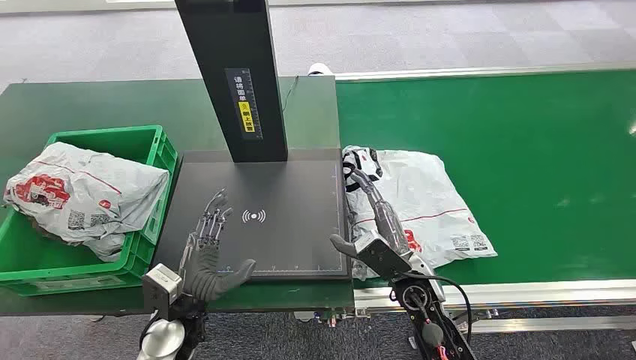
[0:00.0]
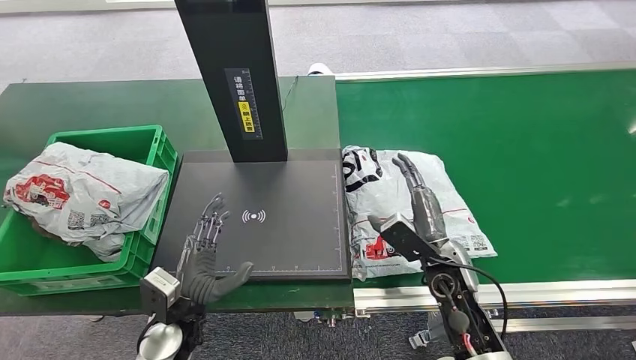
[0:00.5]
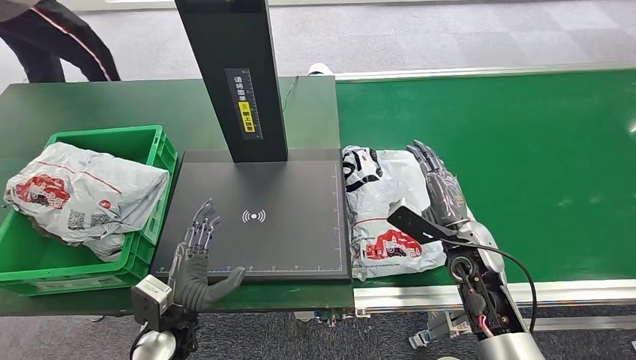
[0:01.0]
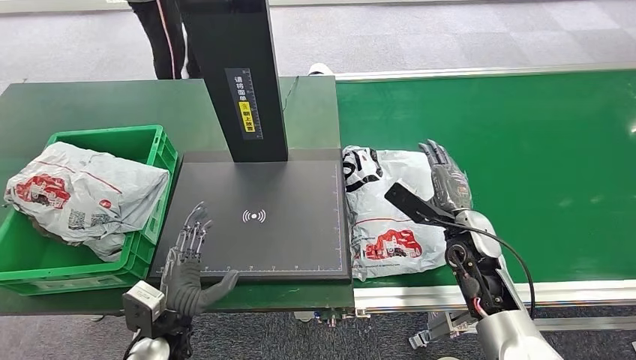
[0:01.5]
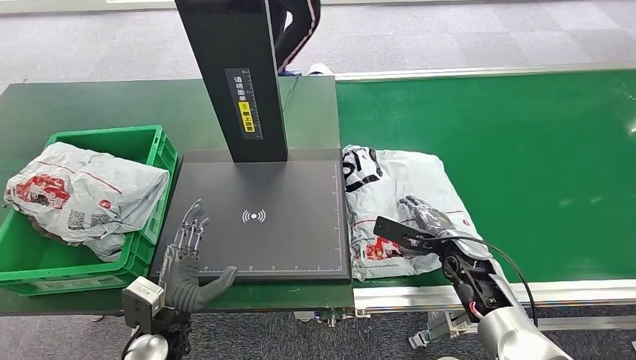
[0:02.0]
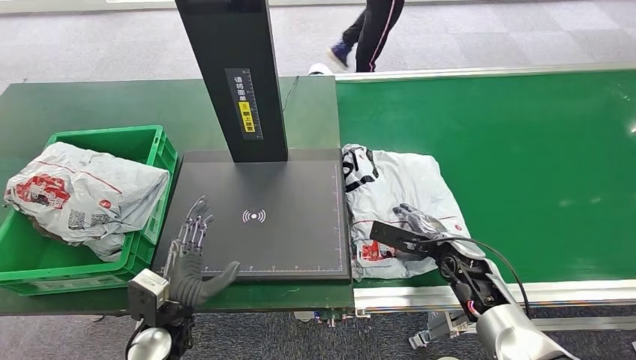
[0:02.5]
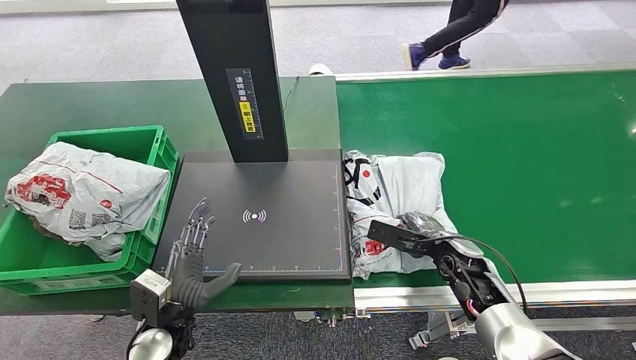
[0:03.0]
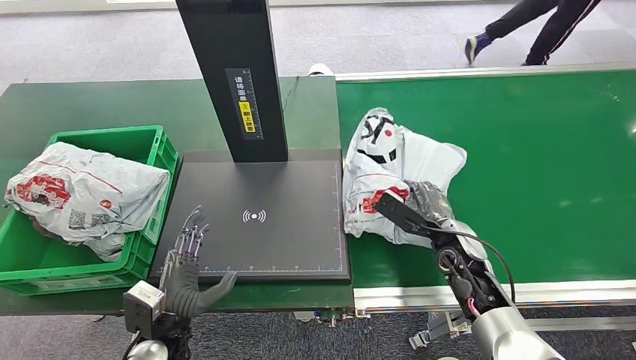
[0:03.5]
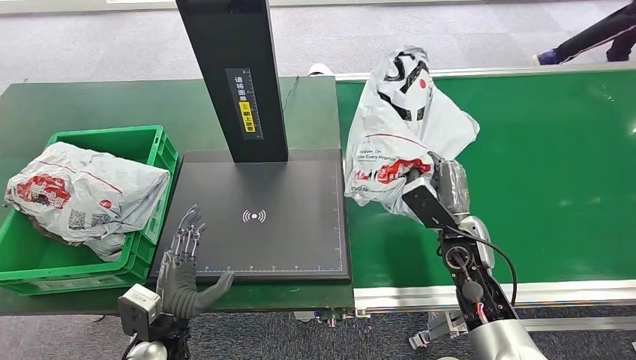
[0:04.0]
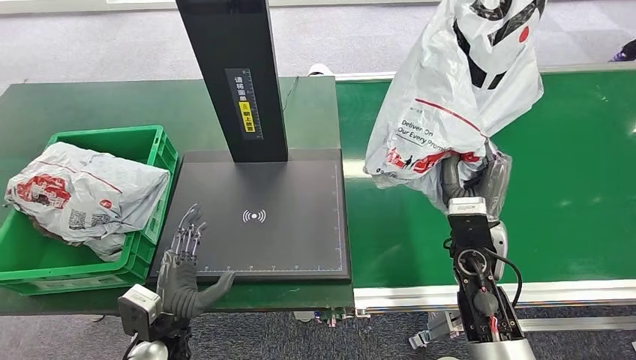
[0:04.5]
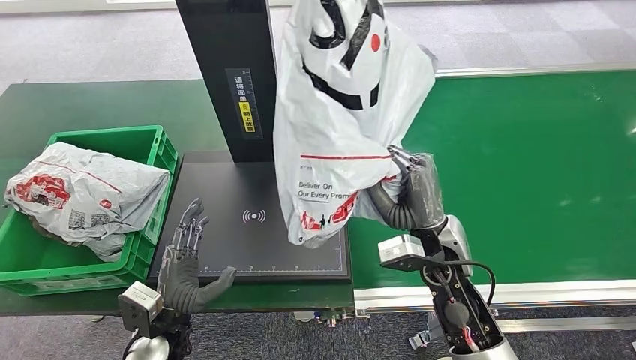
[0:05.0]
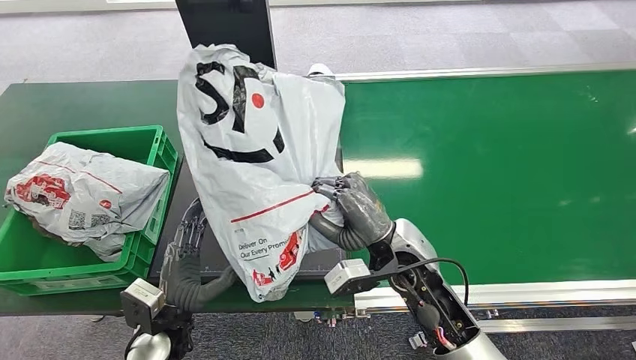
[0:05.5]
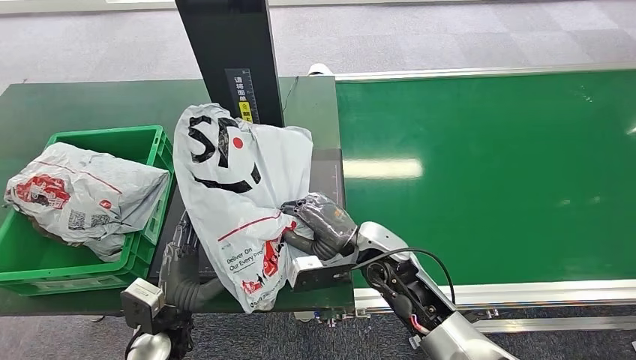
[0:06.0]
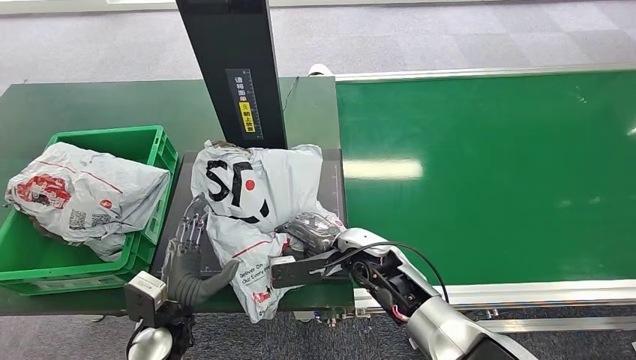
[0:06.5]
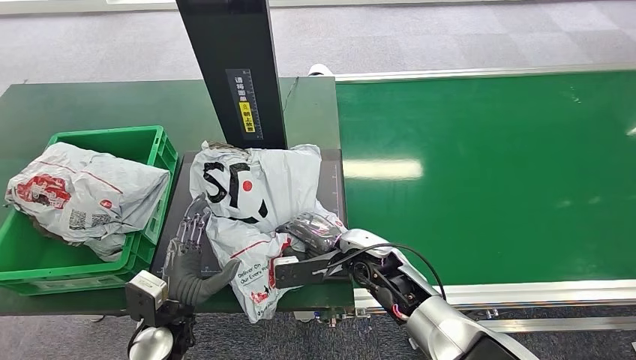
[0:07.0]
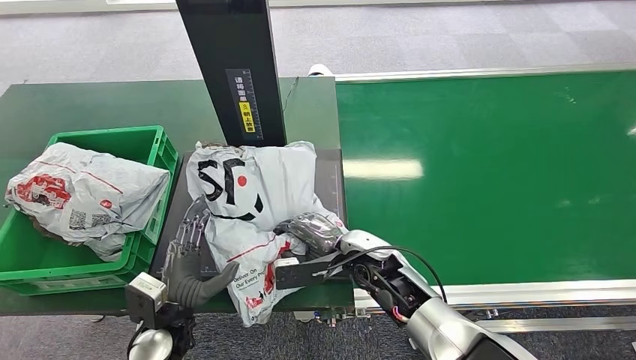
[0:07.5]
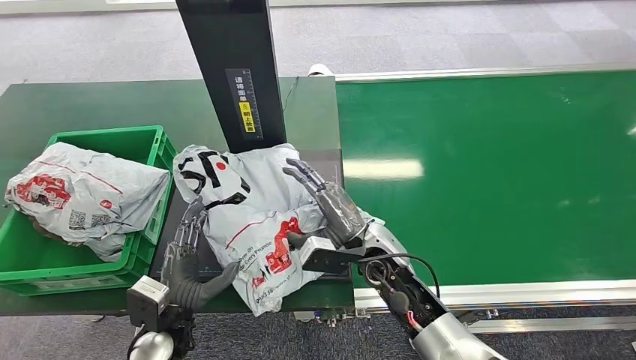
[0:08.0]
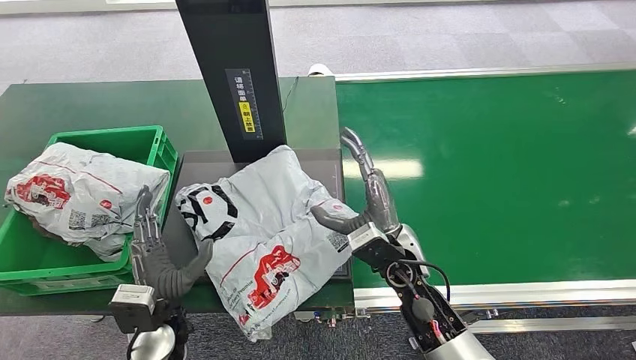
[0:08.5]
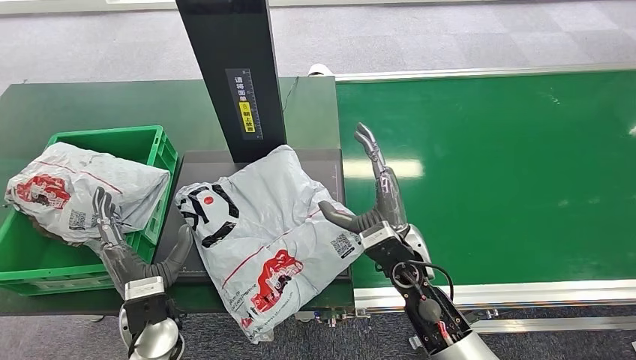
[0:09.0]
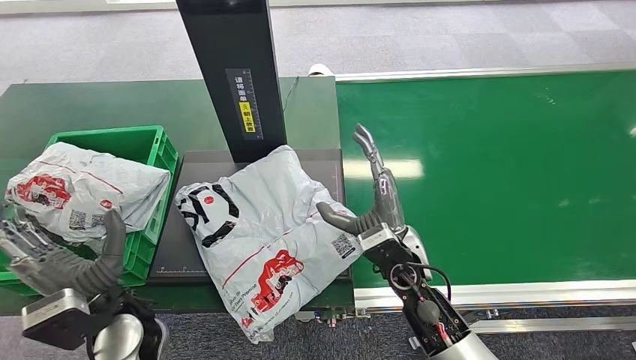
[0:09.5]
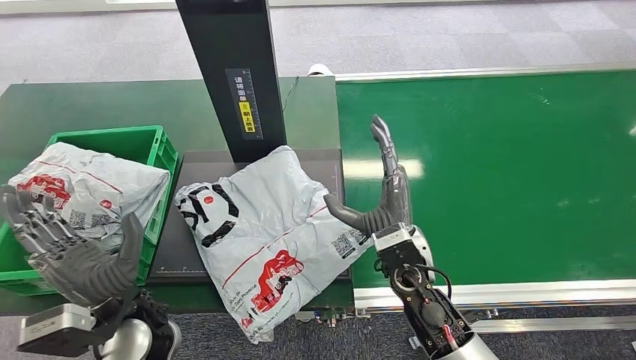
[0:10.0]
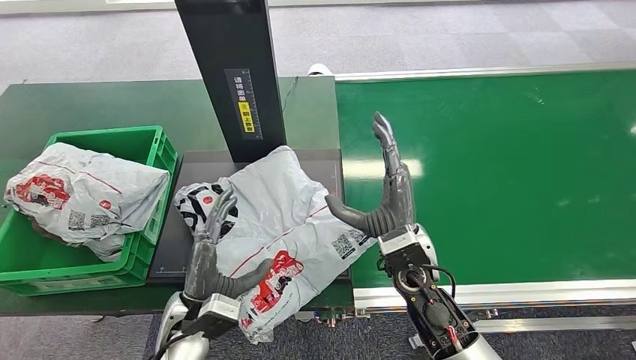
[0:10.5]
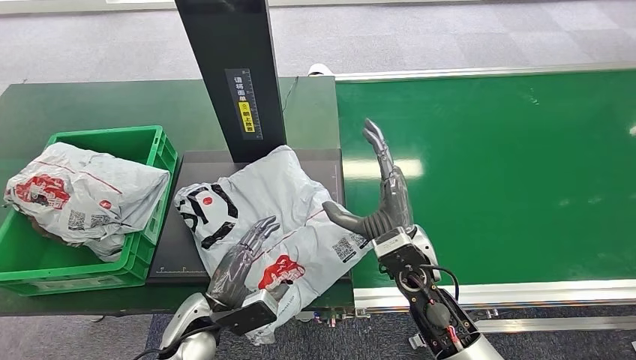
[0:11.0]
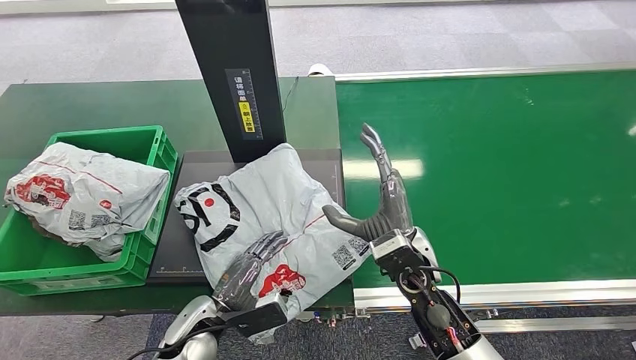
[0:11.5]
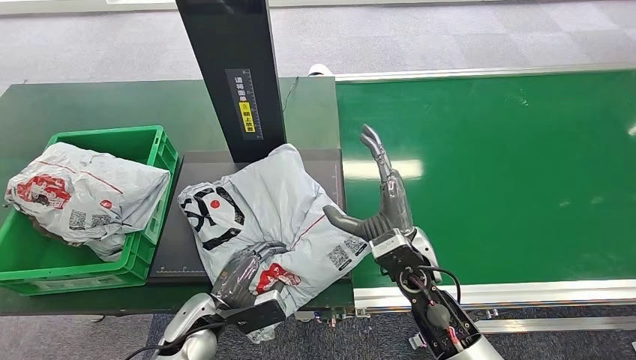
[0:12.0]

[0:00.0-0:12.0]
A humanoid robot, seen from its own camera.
Step, 0:00.0 to 0:04.0: Pick up the package from the conveyor belt.
Step, 0:04.5 to 0:08.5: Place the package onto the inbound machine.
0:02.0 to 0:04.0: The right hand changes place by approximately 5 cm.
0:08.0 to 0:10.0: The left hand heads upward, covering about 10 cm.
0:10.0 to 0:12.0: The left hand travels downward by some 10 cm.

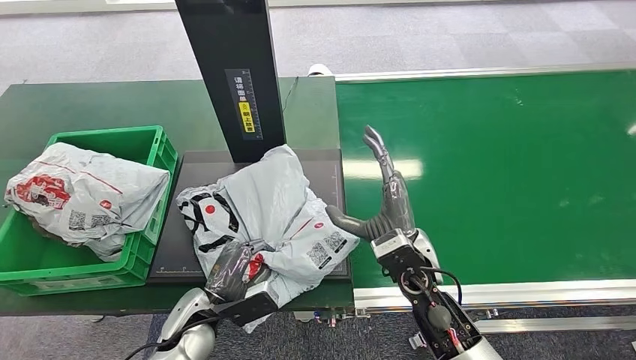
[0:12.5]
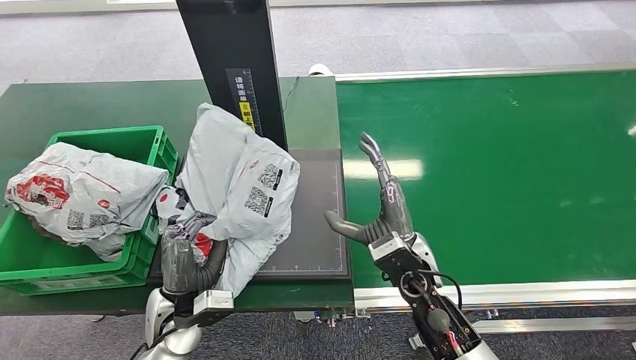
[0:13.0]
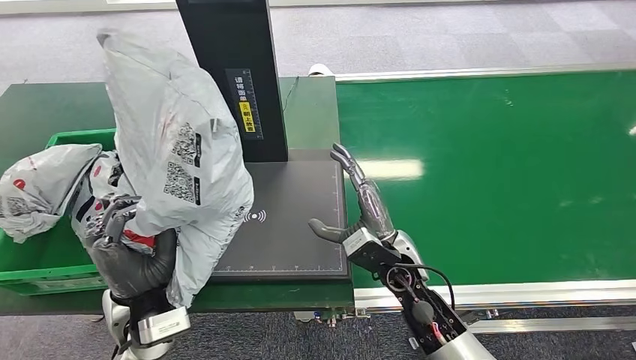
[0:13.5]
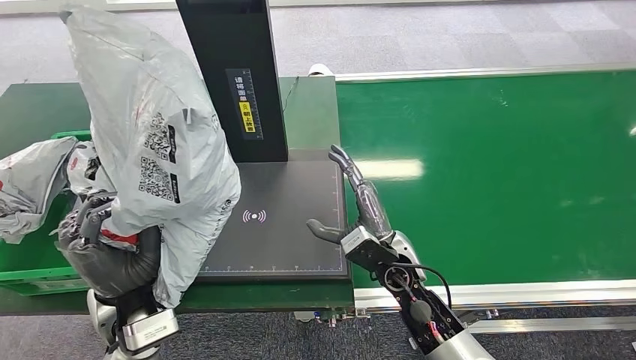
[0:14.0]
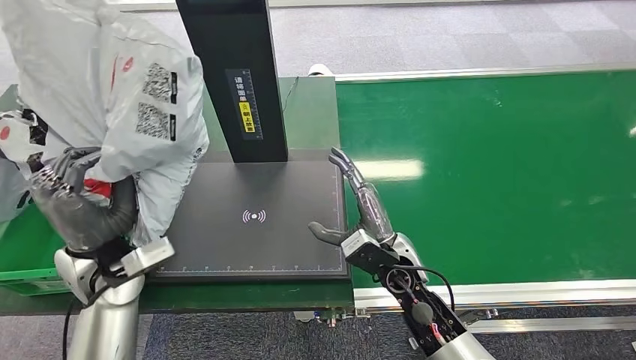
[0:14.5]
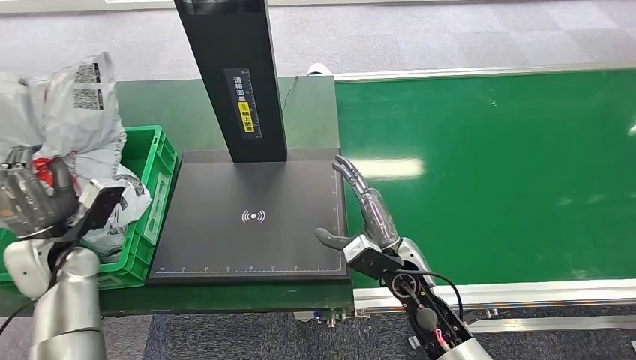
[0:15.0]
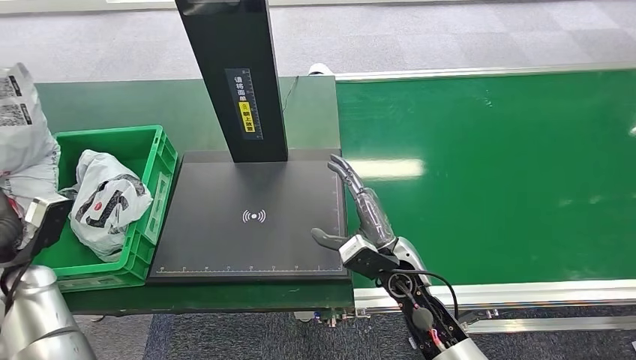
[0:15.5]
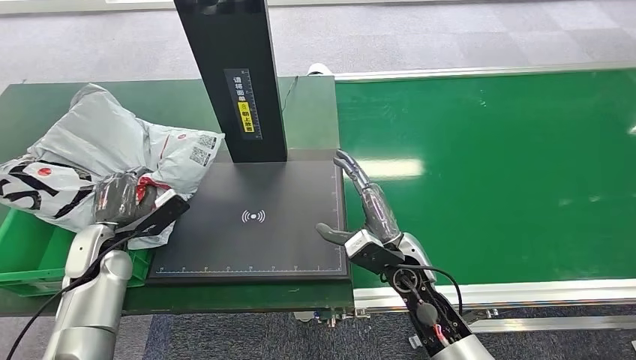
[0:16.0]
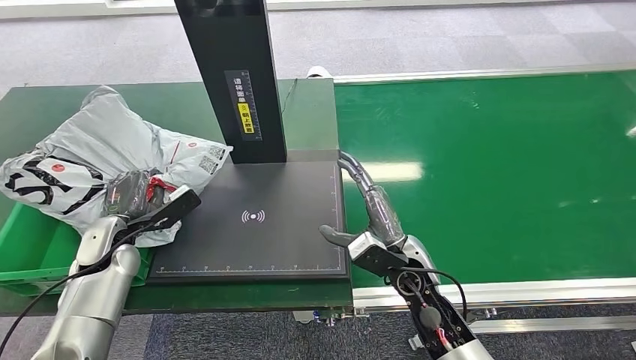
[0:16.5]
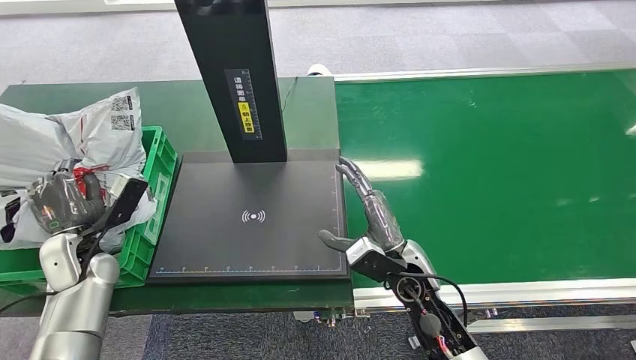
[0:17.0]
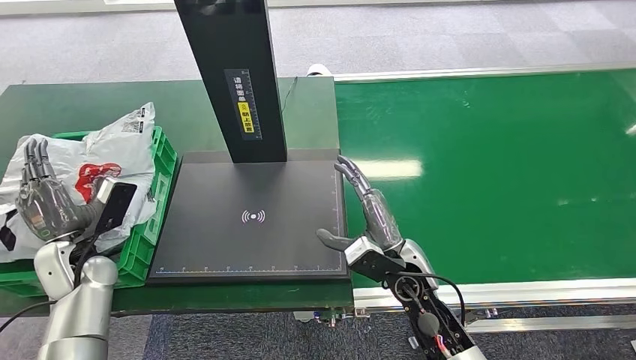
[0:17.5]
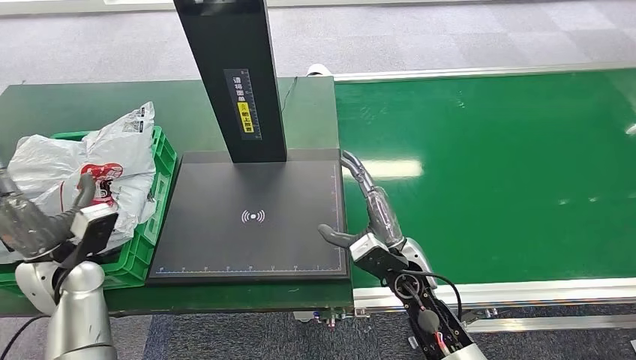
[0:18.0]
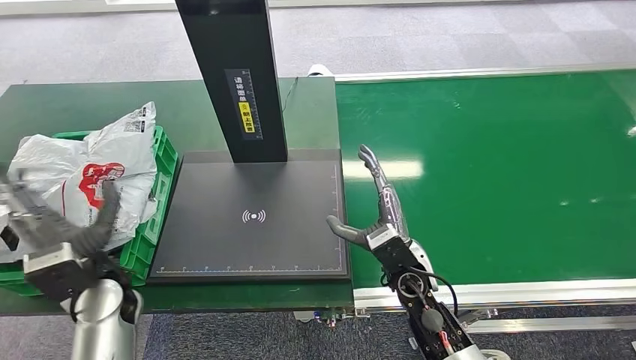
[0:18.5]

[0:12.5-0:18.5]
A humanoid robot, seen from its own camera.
Step, 0:14.5 to 0:18.5: Place the package into the parcel locker.

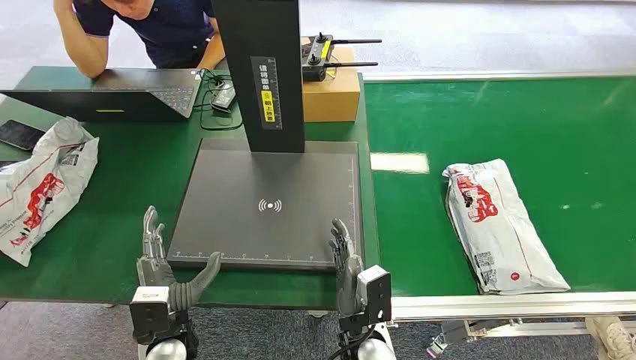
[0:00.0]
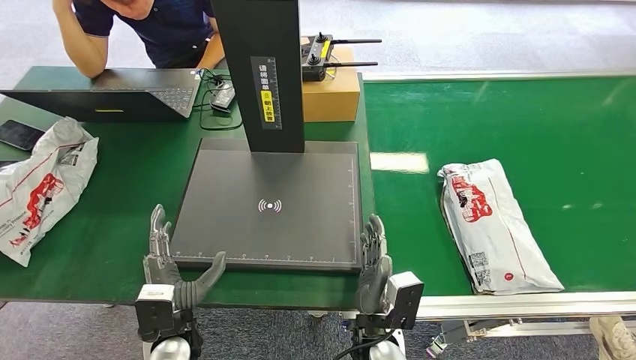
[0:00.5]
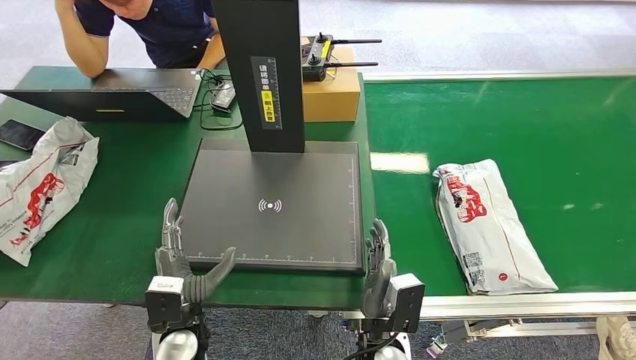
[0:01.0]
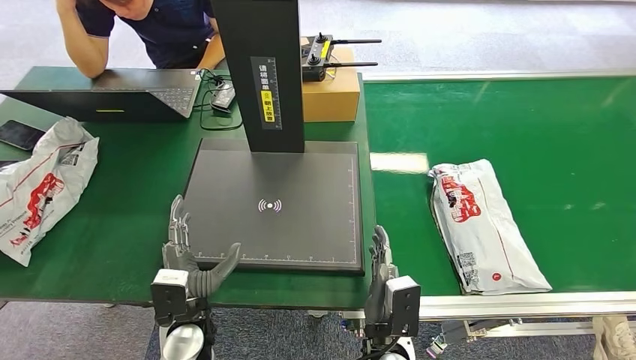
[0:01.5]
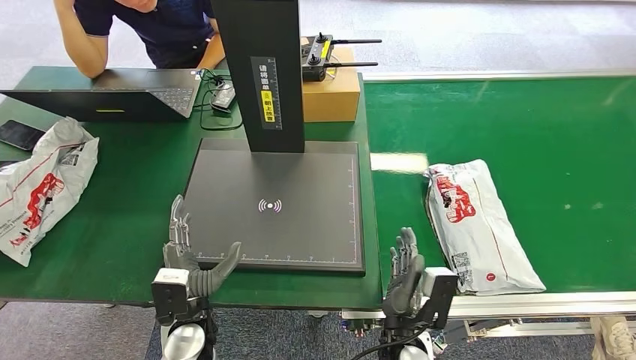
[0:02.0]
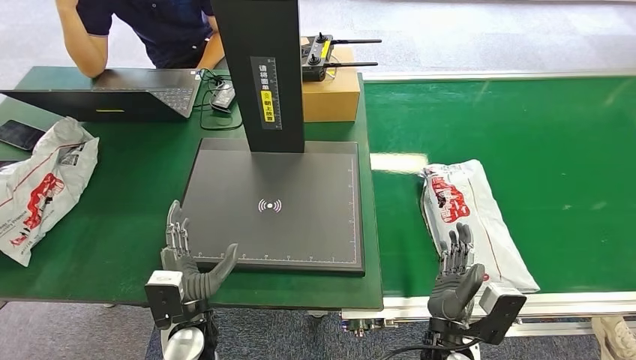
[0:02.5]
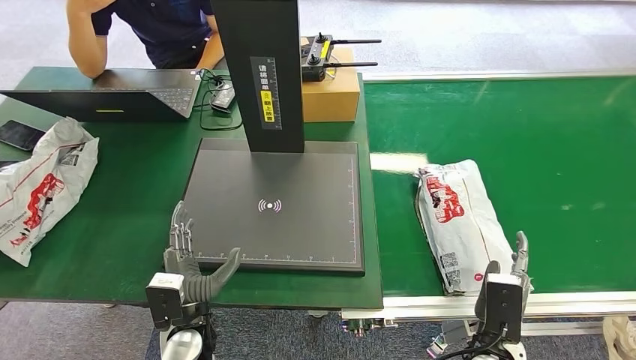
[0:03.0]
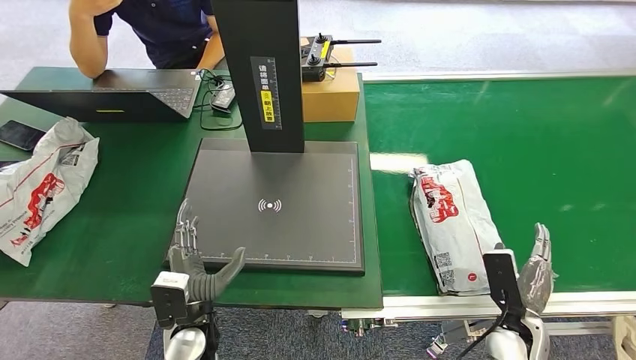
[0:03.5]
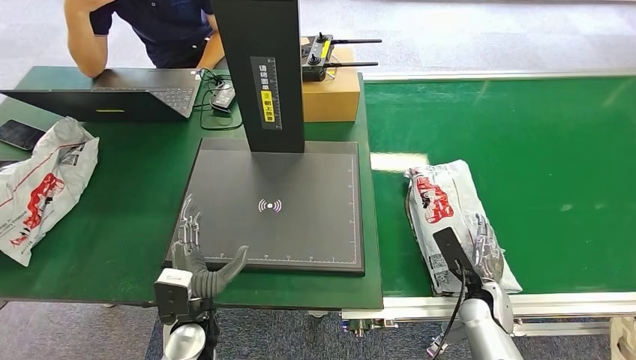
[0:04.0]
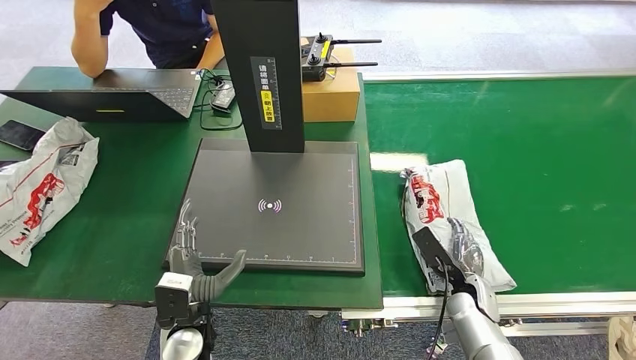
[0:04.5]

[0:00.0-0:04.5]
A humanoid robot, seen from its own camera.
0:02.0 to 0:04.5: The right hand travels to the right and forward by approximately 20 cm.
